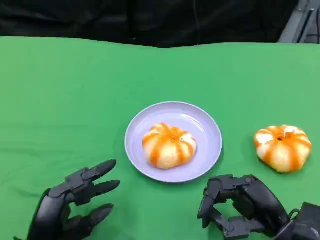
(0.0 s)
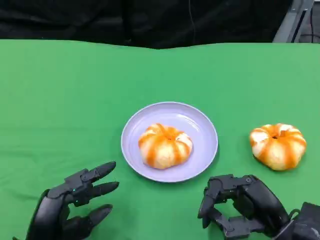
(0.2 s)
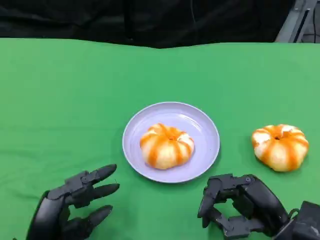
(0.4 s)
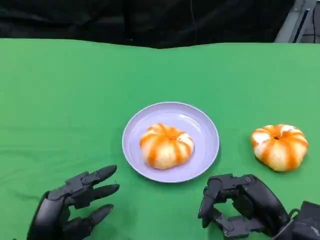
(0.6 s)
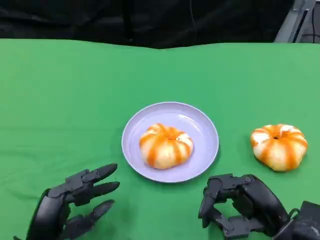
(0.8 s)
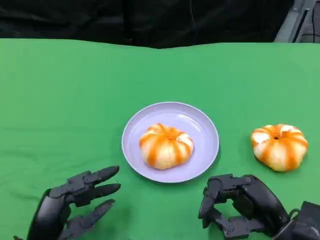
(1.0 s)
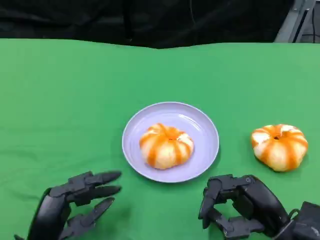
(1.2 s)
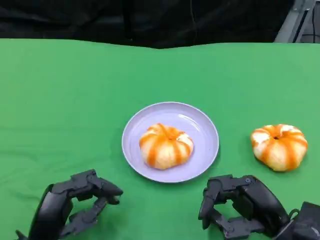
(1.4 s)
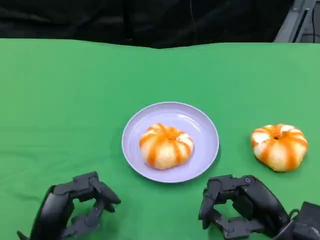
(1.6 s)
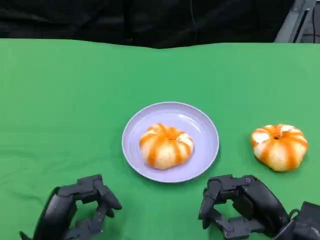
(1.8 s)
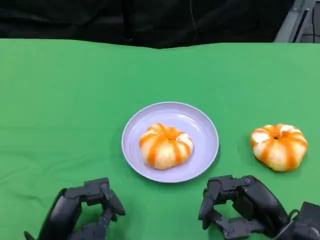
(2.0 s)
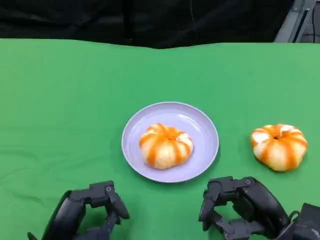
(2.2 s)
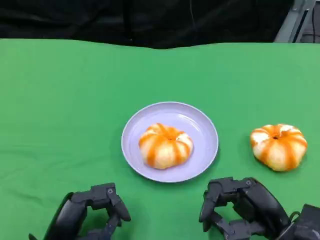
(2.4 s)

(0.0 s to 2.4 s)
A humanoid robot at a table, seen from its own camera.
Task of the whole recording: Grasp the bread from the table and place it into the plate.
0.0 s - 1.2 s: Neither hand changes place.
1.2 s - 2.4 s: The hands stay close to where they were, moving slightly.

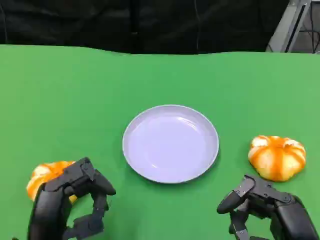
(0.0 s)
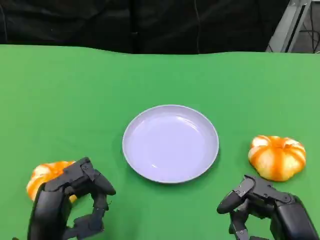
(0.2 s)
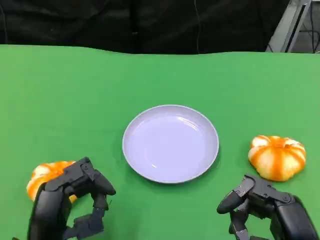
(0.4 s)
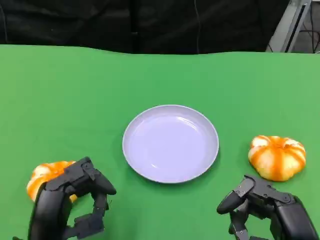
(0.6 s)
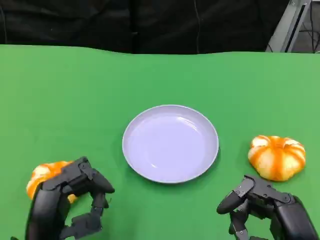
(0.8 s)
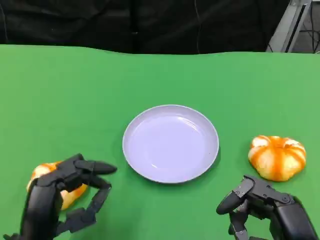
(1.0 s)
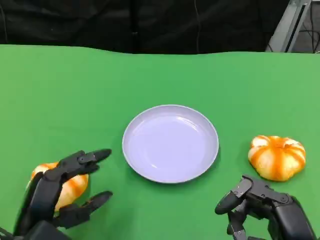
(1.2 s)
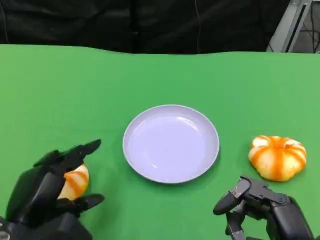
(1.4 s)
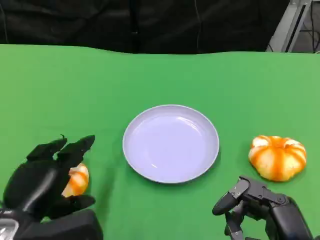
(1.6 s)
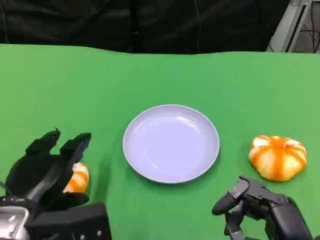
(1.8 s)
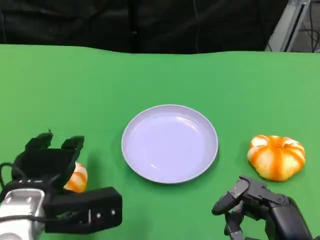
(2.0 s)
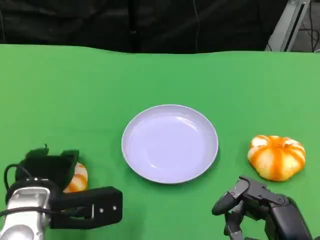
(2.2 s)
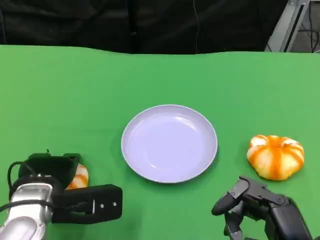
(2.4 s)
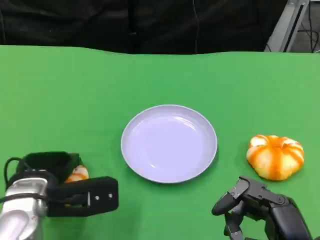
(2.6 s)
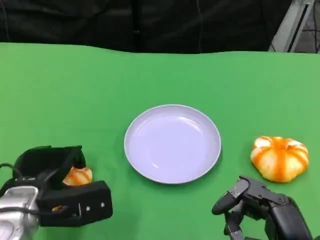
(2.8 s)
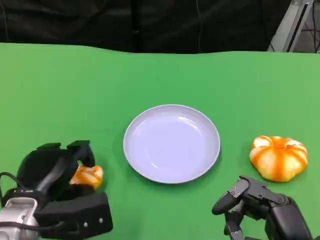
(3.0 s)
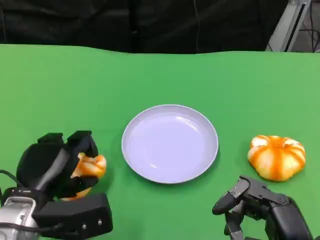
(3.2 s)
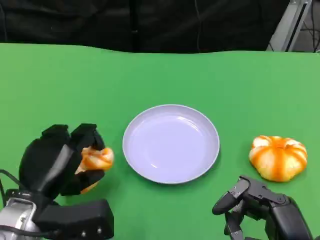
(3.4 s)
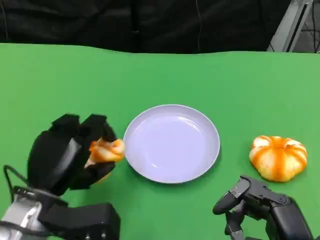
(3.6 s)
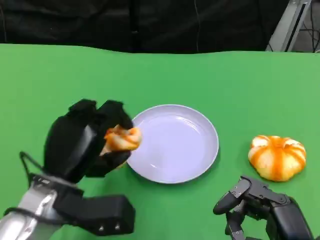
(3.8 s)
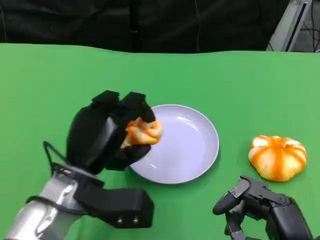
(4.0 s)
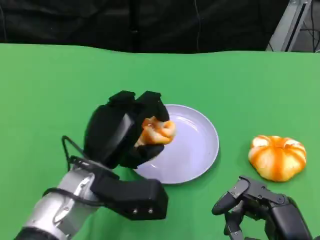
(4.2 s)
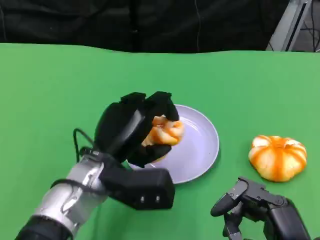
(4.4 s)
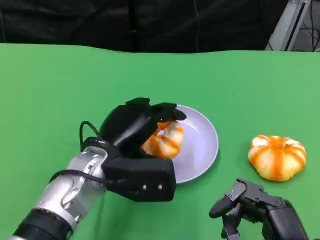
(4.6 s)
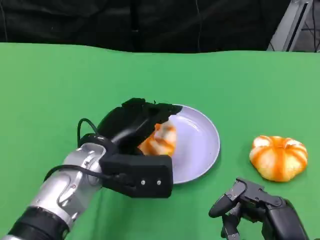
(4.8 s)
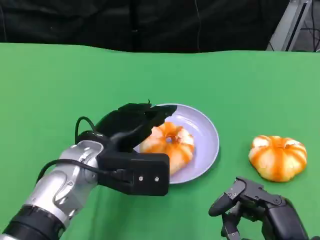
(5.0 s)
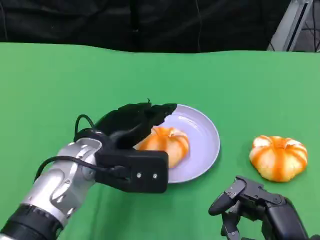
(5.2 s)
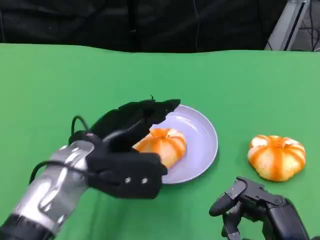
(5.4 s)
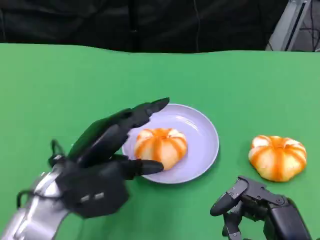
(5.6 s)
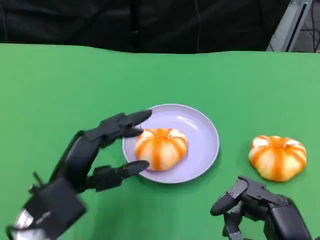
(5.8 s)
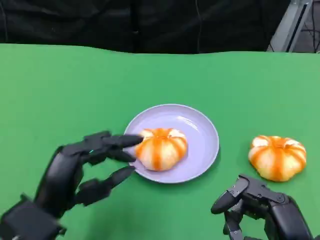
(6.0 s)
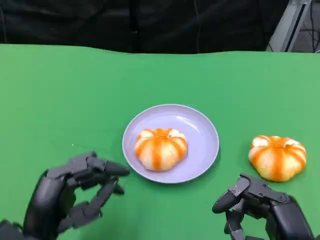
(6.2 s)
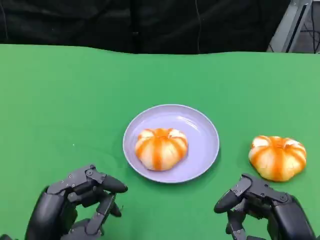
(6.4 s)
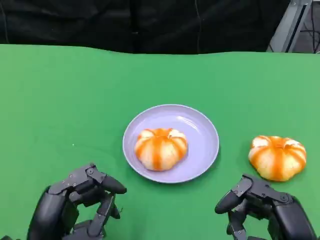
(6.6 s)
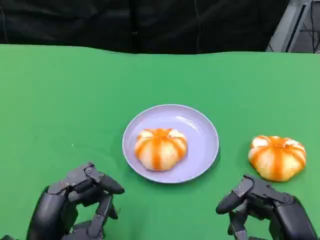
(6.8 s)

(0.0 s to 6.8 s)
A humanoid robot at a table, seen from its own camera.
Task of the whole recording: Grasp the bread from the table and place it into the plate.
1.4 s - 2.8 s: The left hand travels forward by some 5 cm.
2.8 s - 4.0 s: The left hand travels to the right by approximately 5 cm.
5.4 s - 6.8 s: The left hand moves backward, downward and to the left, about 15 cm.

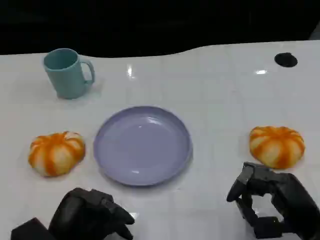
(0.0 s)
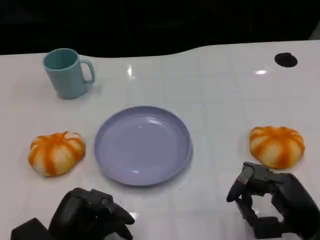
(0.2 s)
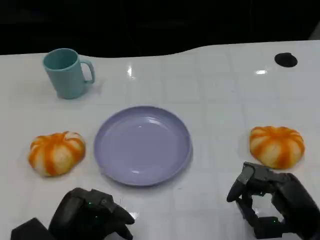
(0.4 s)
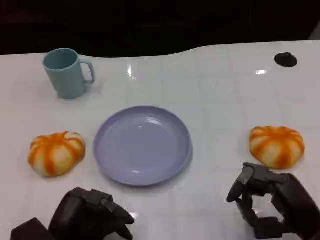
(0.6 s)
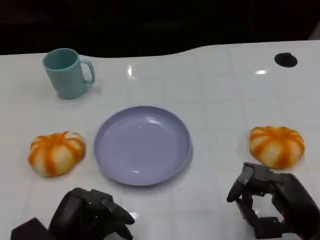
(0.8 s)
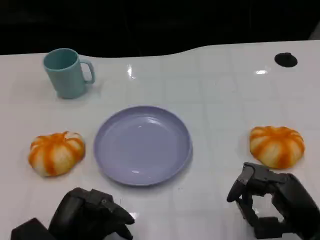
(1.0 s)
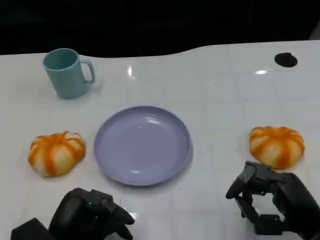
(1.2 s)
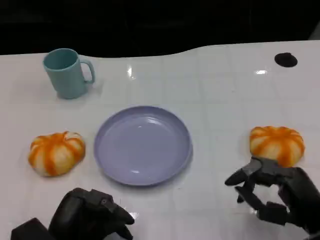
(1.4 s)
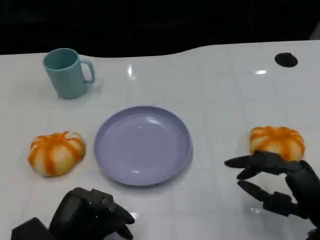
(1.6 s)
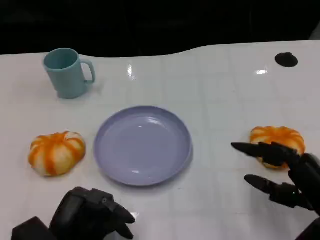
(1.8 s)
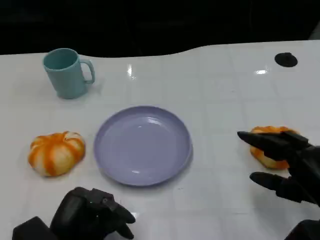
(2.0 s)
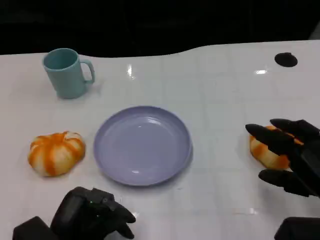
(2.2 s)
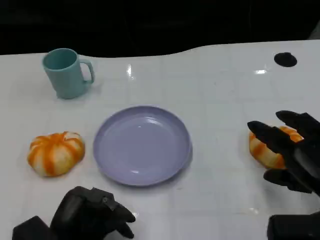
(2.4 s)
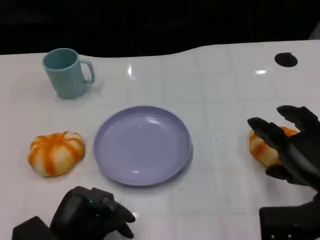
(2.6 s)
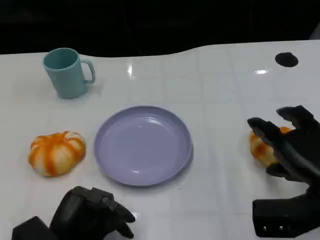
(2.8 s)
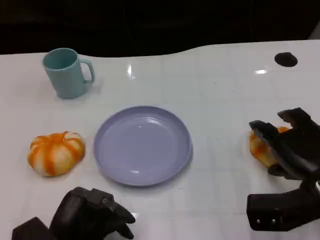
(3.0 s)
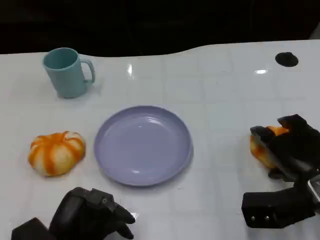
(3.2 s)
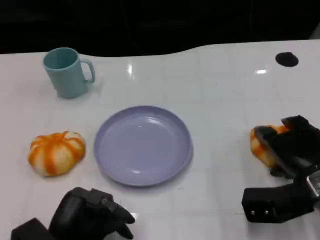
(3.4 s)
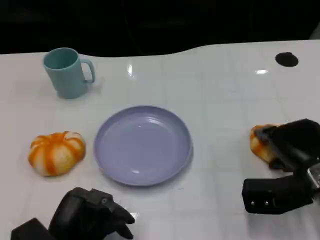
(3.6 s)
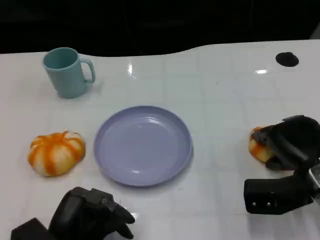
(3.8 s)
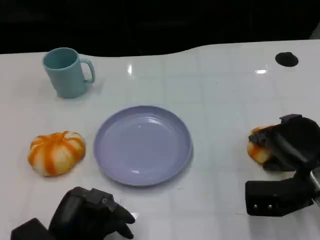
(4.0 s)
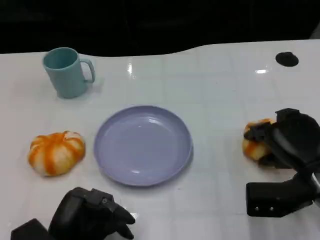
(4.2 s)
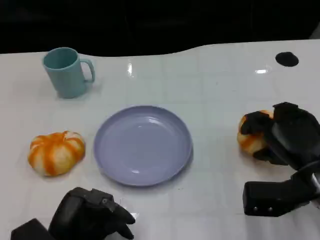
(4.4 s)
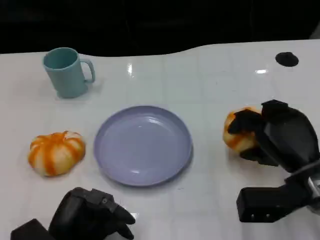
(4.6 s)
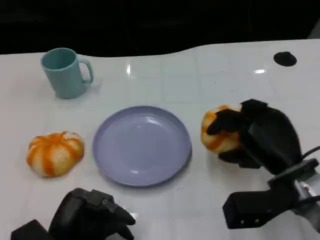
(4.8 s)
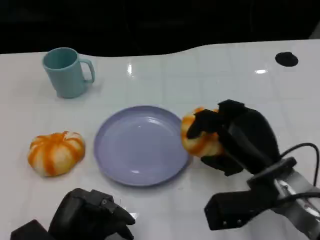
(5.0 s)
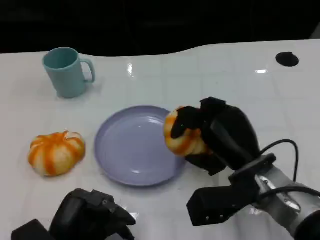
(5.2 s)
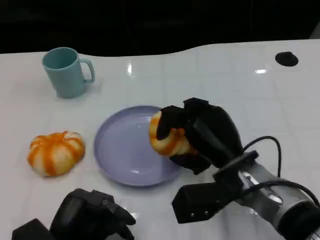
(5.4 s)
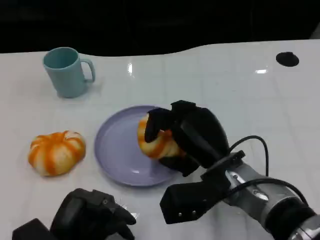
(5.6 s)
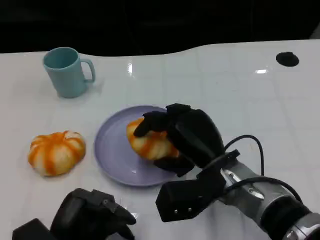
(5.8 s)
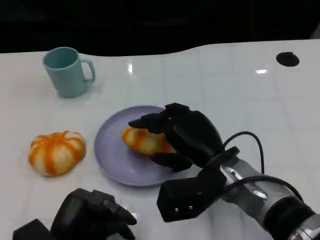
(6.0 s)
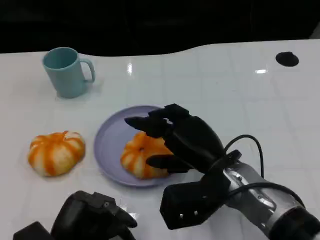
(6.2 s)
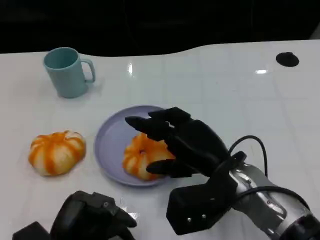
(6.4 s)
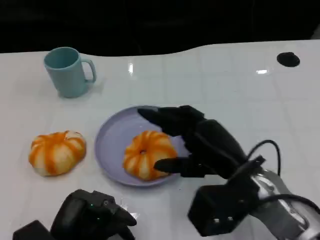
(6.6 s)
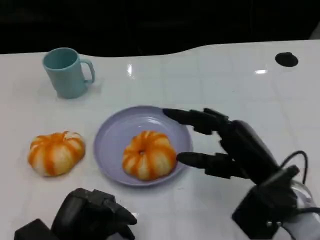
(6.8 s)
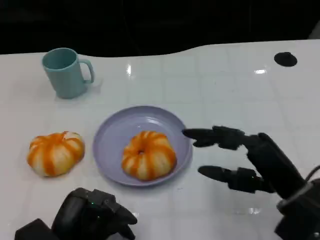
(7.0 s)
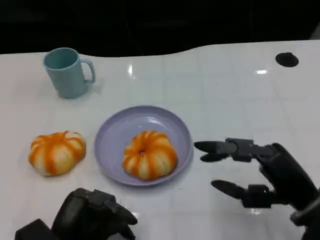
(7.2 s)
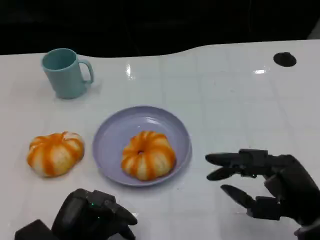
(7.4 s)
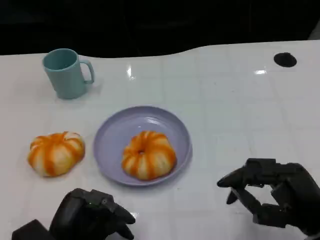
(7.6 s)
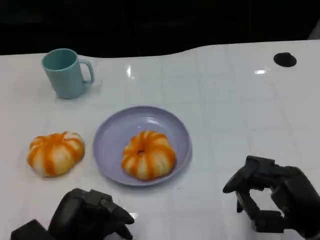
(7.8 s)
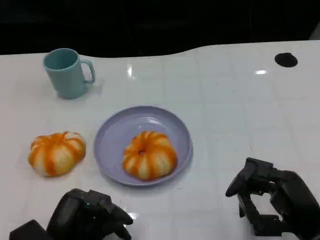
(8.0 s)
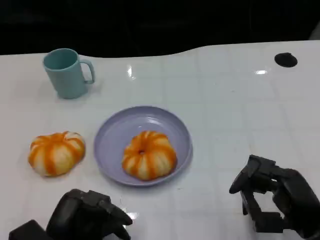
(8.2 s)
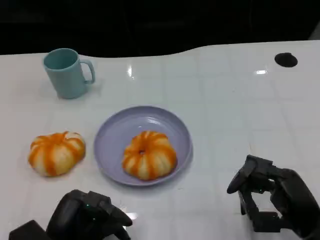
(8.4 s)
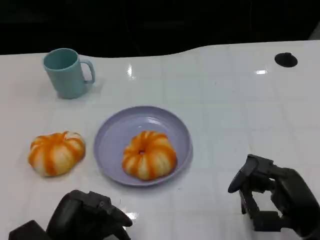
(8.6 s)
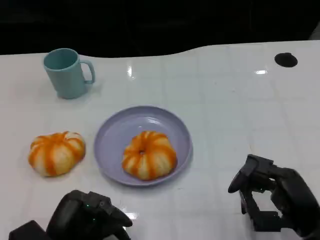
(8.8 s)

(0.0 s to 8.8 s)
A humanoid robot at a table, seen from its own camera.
Task of the whole recording: Grasp the bread from the table and place it into the plate.
0.0 s - 1.4 s: The hands make only small movements.
1.4 s - 3.0 s: The right hand shifts approximately 5 cm forward.
4.4 s - 5.8 s: The right hand goes about 15 cm to the left.
5.8 s - 7.4 s: The right hand heads to the right and backward, covering some 15 cm.
7.4 s - 8.8 s: There are only small adjustments of the hands.

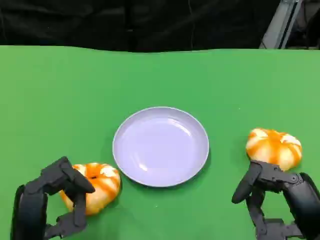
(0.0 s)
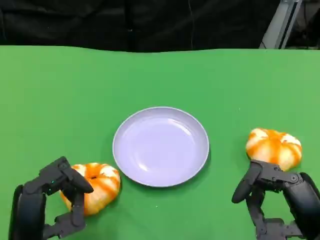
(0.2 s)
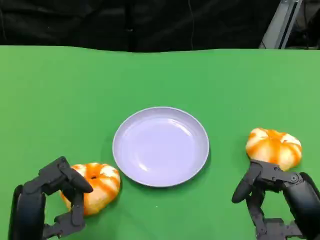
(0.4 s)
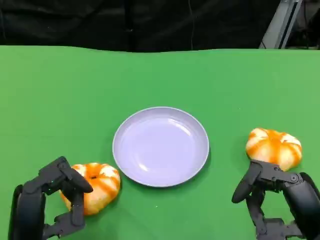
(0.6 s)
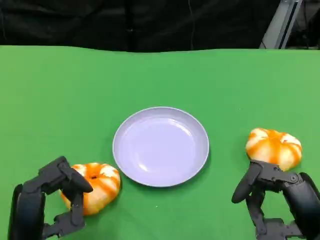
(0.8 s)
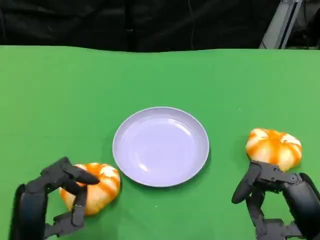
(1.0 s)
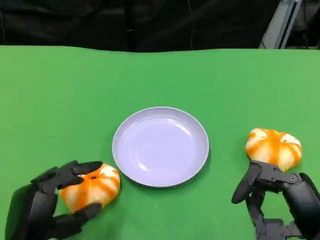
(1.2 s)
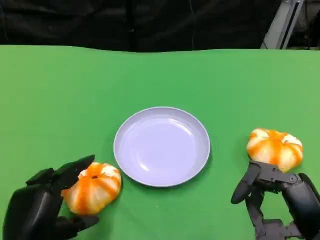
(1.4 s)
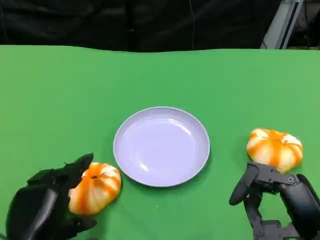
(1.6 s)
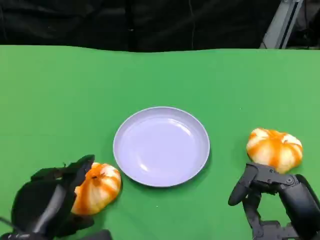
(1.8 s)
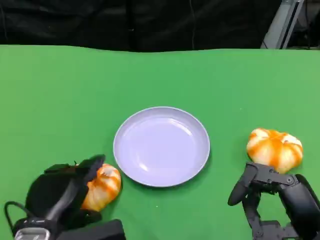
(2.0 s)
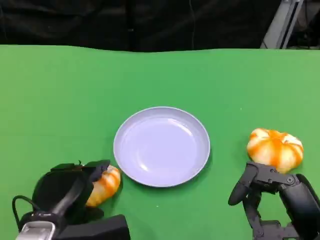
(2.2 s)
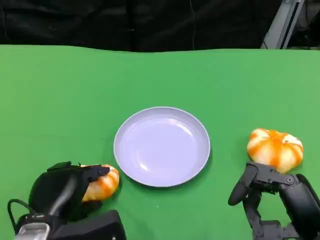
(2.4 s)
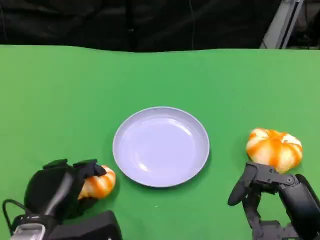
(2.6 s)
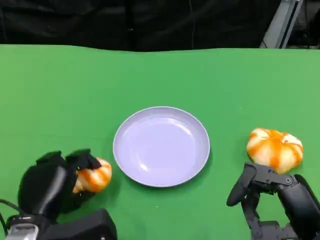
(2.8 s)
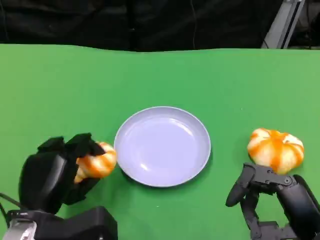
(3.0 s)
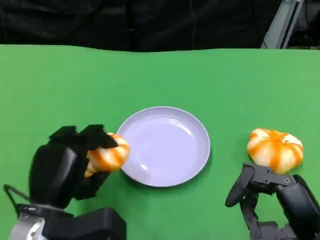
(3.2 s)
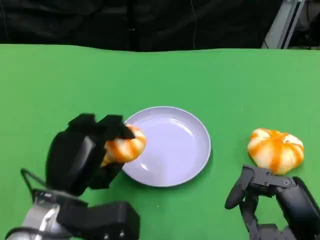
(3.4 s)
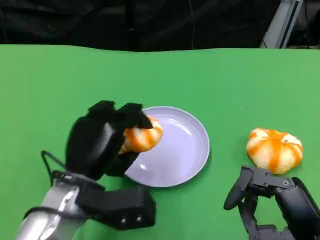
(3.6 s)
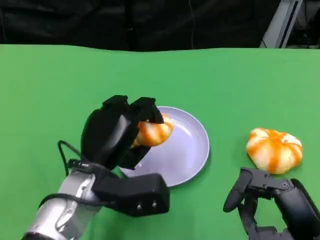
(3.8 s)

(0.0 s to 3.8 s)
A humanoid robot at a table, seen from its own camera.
Task of the whole recording: Grasp the bread from the table and place it into the plate.
1.2 s - 2.6 s: The left hand shifts by some 5 cm.
2.6 s - 3.8 s: The left hand shifts about 10 cm to the right, forward and upward.
